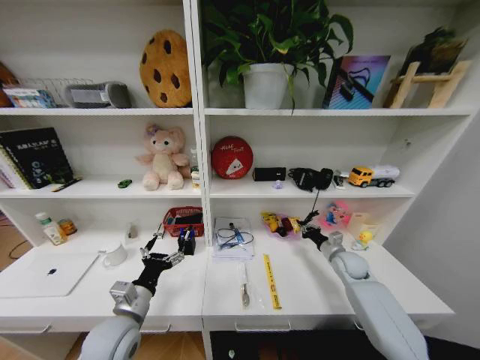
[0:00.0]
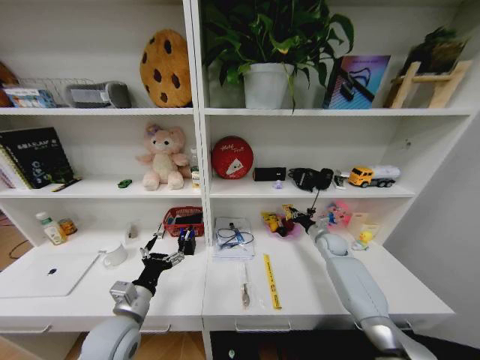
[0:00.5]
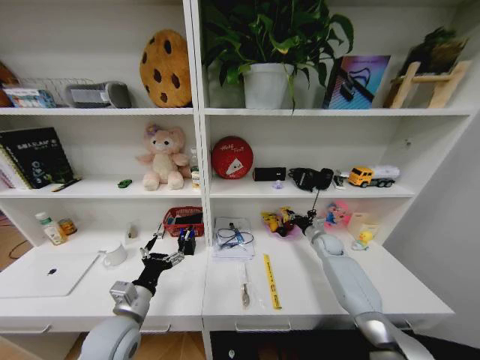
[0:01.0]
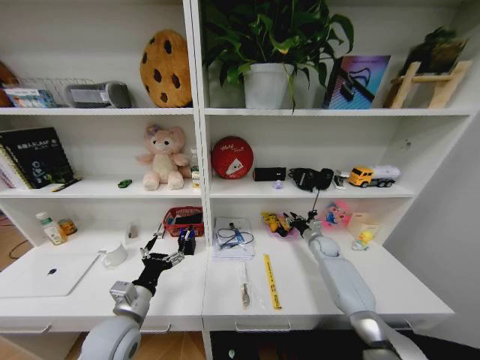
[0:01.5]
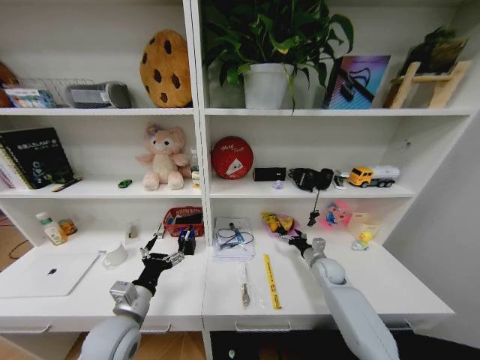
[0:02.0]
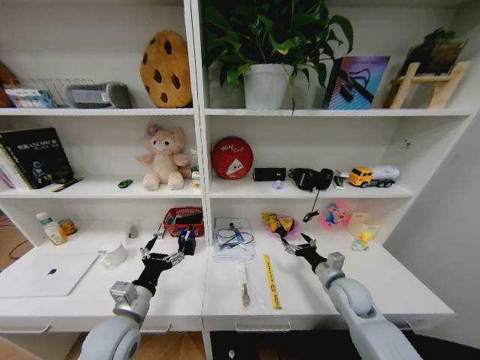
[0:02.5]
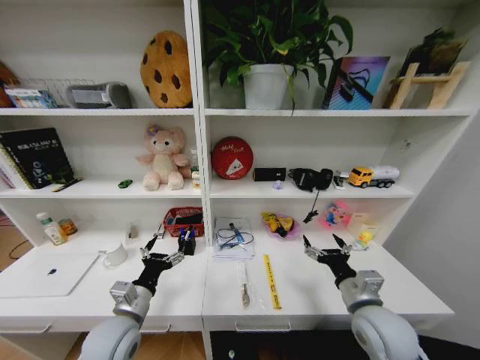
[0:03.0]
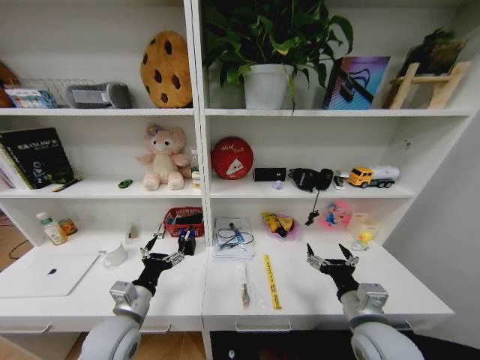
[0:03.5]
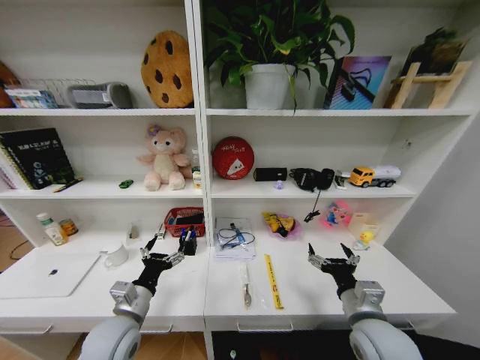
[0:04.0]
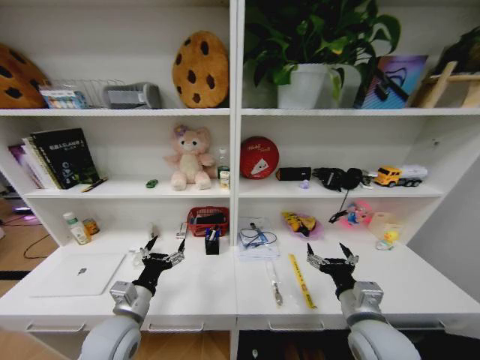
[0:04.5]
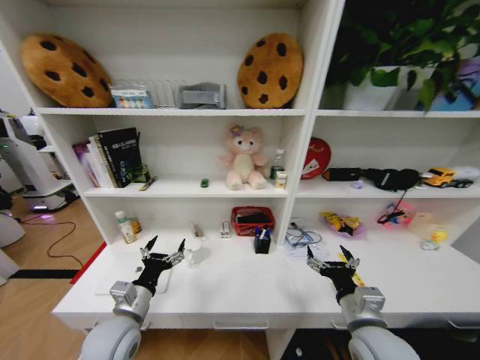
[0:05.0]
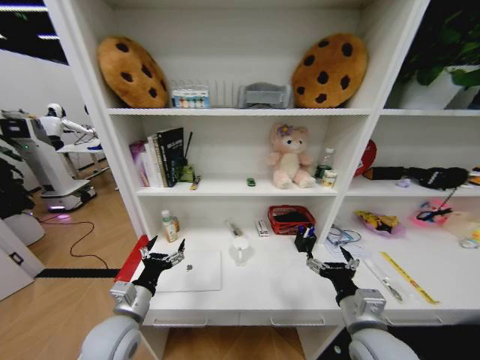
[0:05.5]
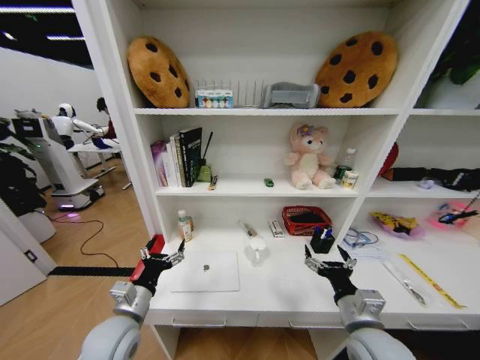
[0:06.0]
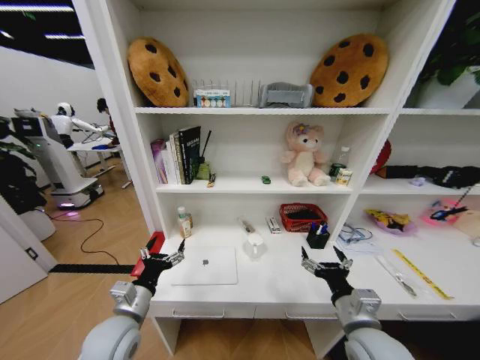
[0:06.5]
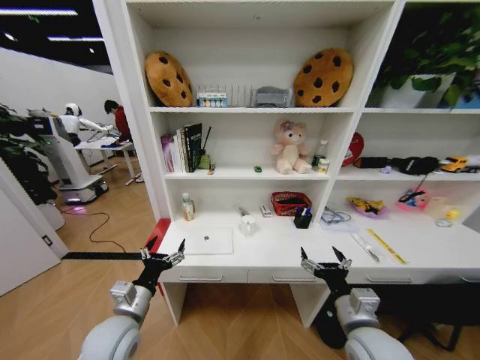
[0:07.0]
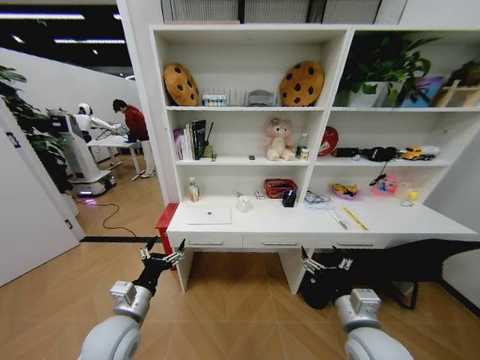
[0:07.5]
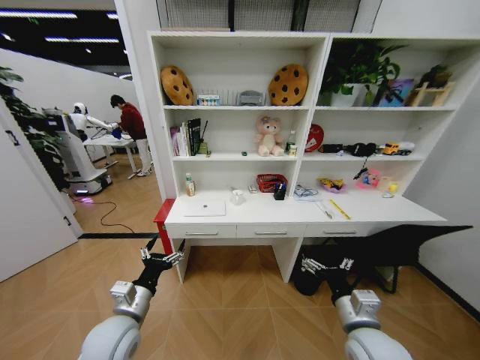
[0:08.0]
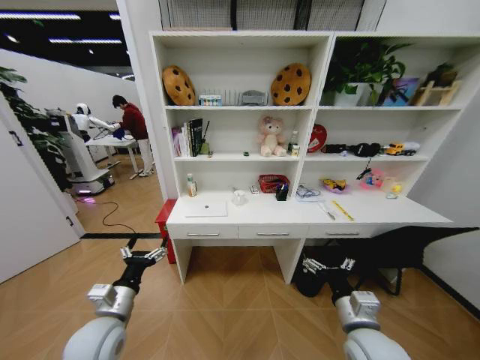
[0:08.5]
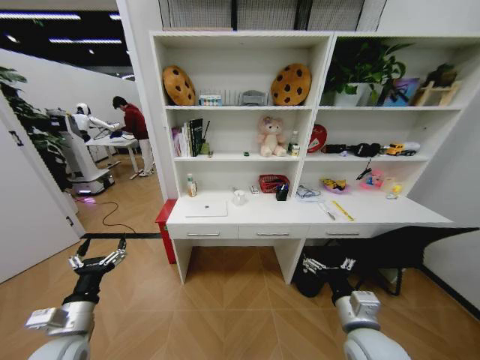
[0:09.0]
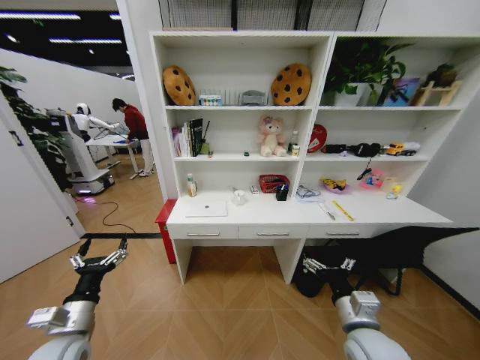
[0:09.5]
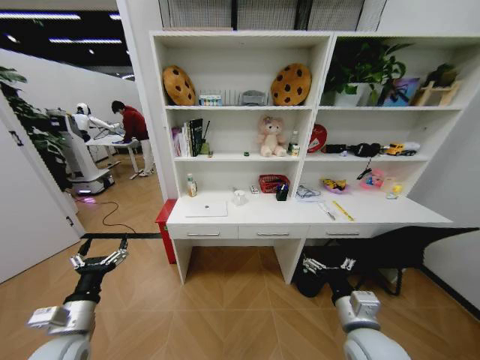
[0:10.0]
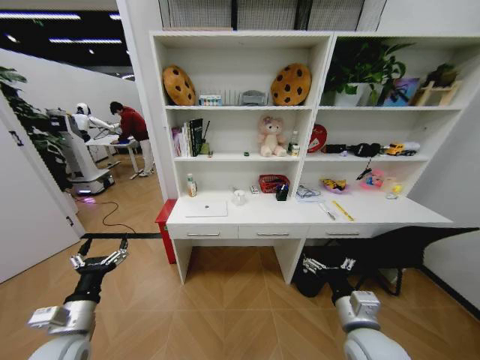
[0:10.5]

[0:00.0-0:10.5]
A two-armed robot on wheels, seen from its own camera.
Task of the whole recording: Organize the objects on the table.
0:00.0 to 0:02.0: The right gripper moves to the left, approximately 5 cm, goes forward and returns, about 10 cm each way, and opens its fingers.
0:02.0 to 0:04.0: The right gripper heads backward and upward, covering some 25 cm.
0:08.5 to 0:10.5: The left gripper moves to the left, some 5 cm.
